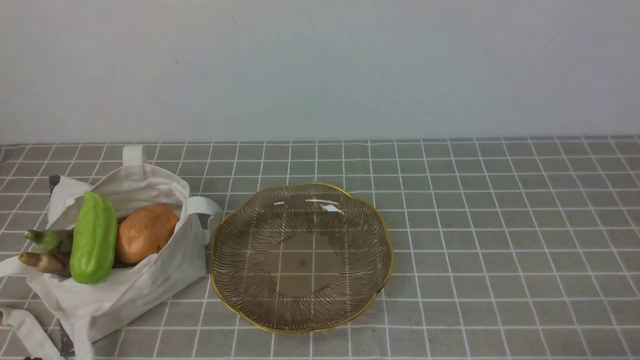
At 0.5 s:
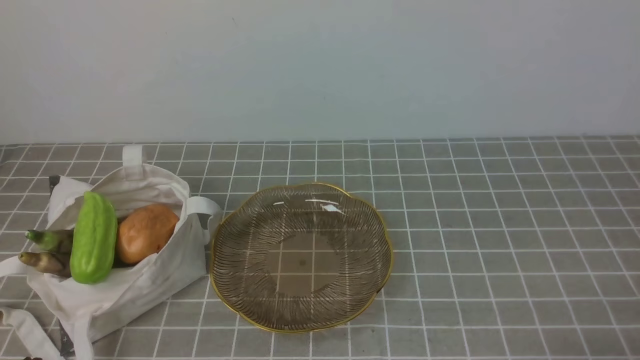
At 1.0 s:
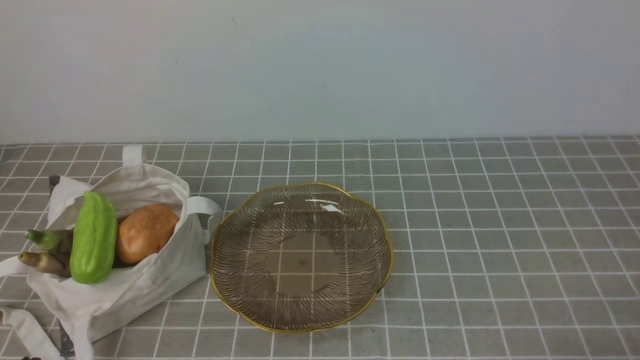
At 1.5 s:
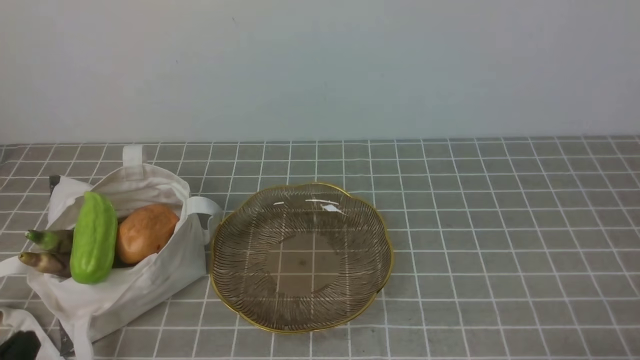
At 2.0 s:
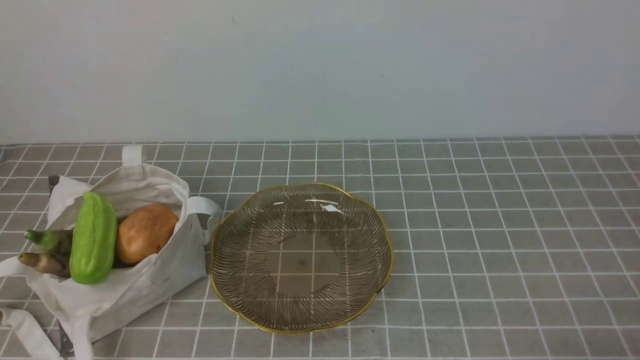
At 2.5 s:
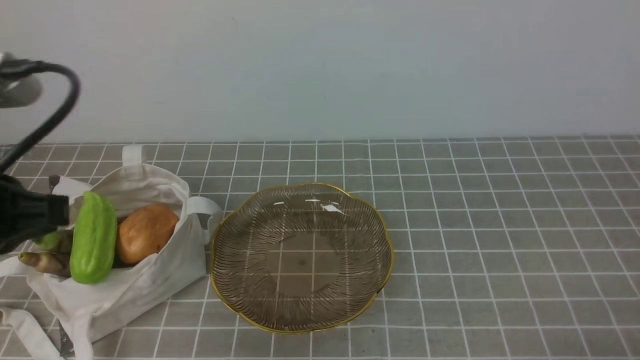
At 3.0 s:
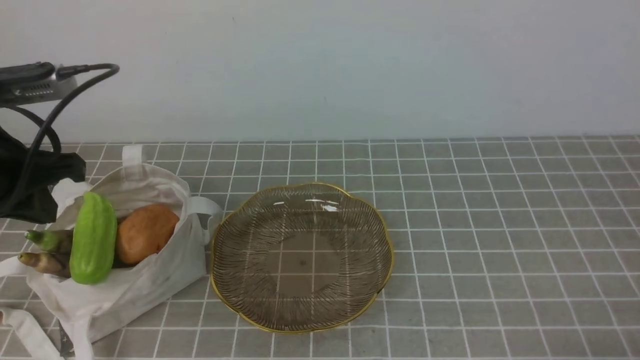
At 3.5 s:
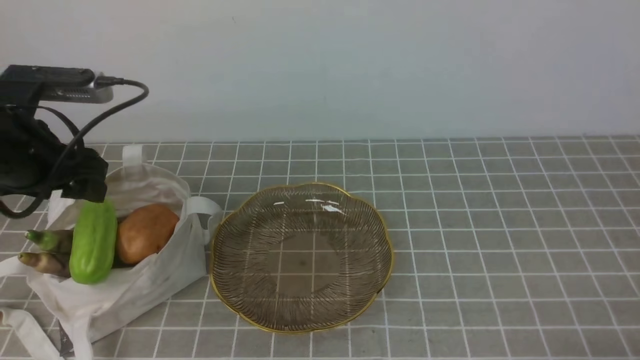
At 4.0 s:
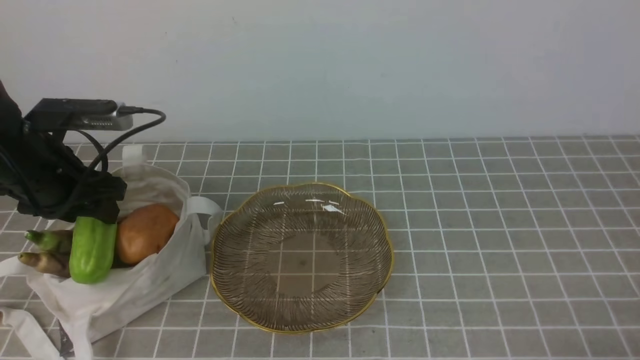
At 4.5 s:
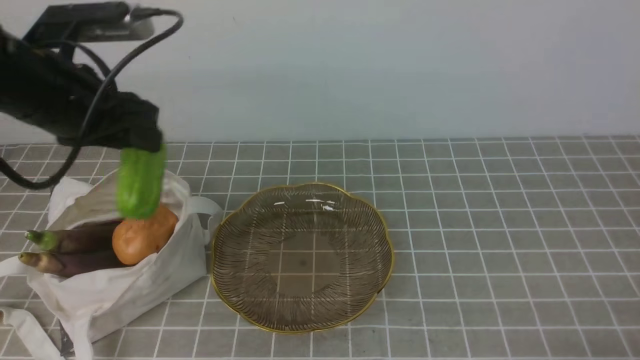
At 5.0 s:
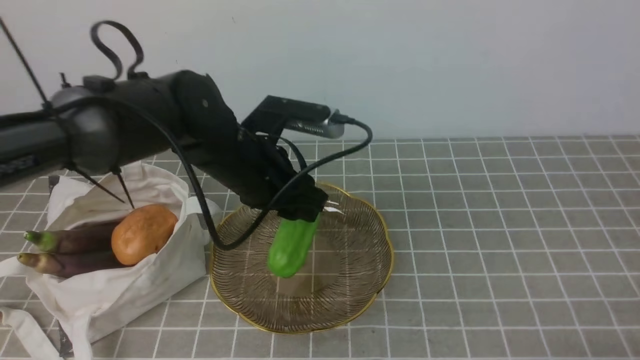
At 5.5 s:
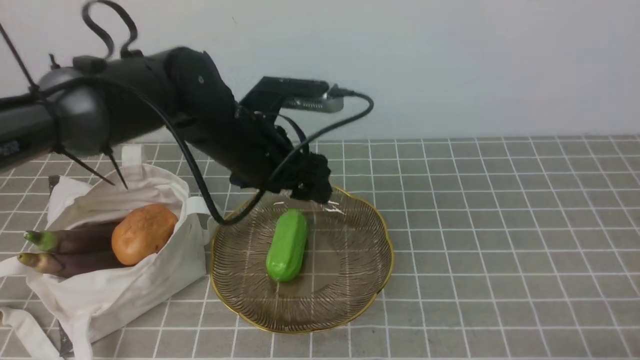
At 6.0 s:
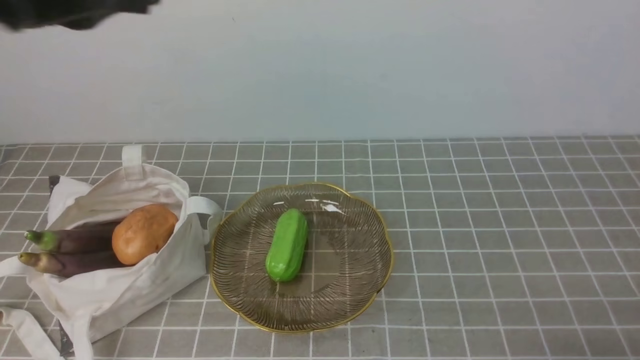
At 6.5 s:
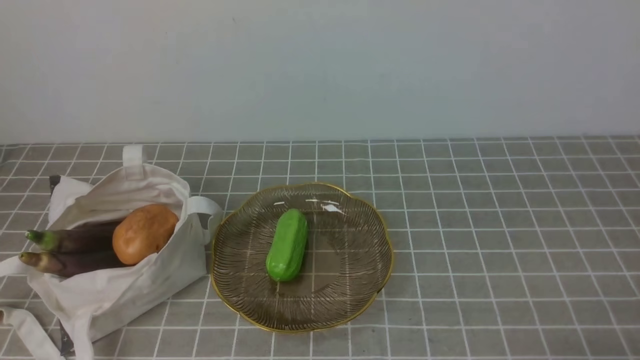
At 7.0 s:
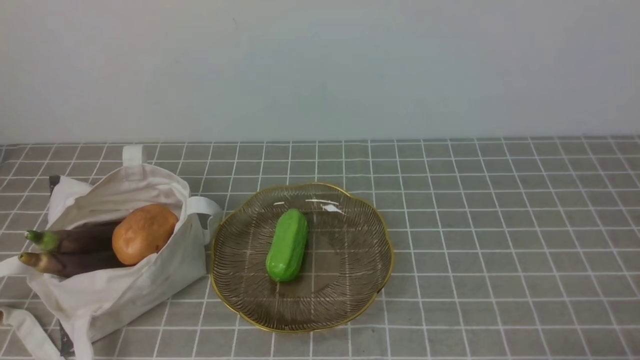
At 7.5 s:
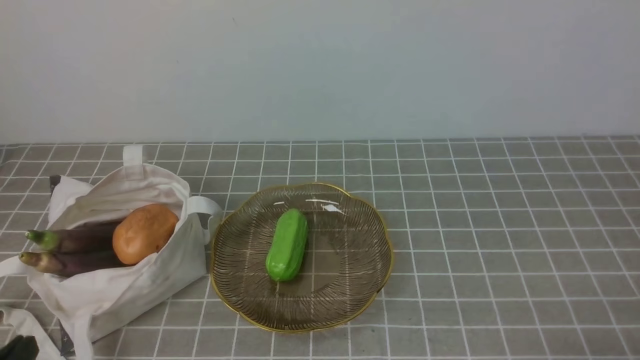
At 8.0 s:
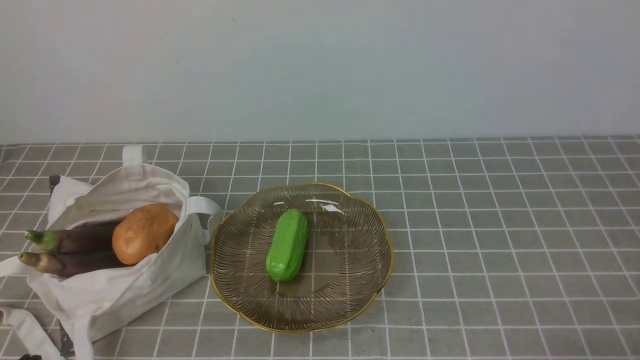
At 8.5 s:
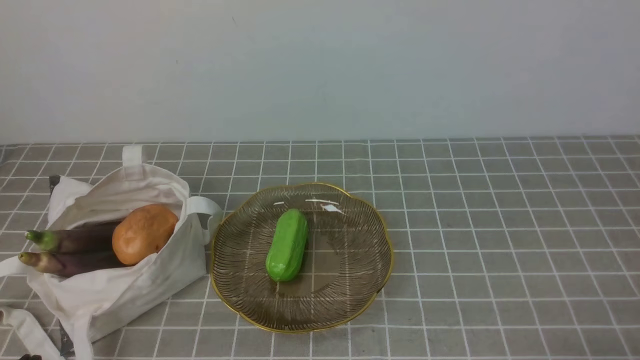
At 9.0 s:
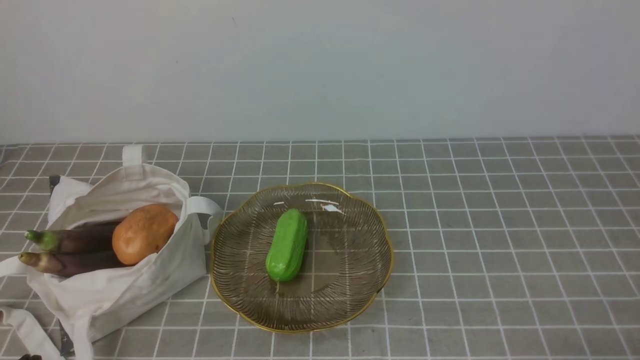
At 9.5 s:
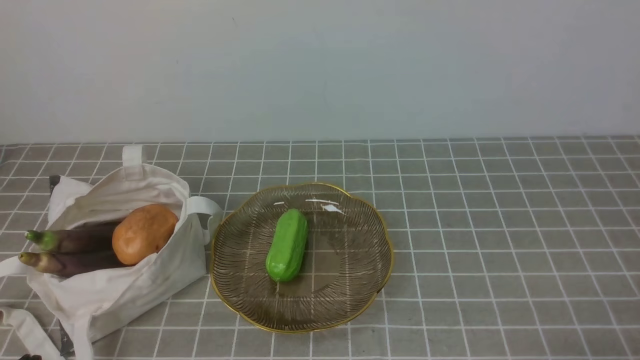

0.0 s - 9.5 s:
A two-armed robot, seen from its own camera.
Task of the whole recording: take vegetables from bag on grey coffee tablecloth place on plate.
Step, 0.0 s - 4.0 s: Grasp the bitter melon with left gripper.
Step, 4.5 s - 5.5 s: Place the bitter melon on the plate with left gripper.
2.0 s - 4.0 s: The left gripper goes about 30 cm forward, and opens its fingers.
4.0 s - 5.5 s: The left gripper moves to the right, approximately 20 cm.
5.5 s - 7.5 s: The left gripper travels backward and to the left by some 35 cm, and closes its fingers.

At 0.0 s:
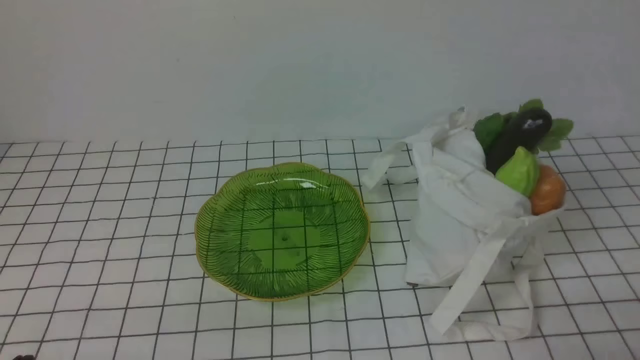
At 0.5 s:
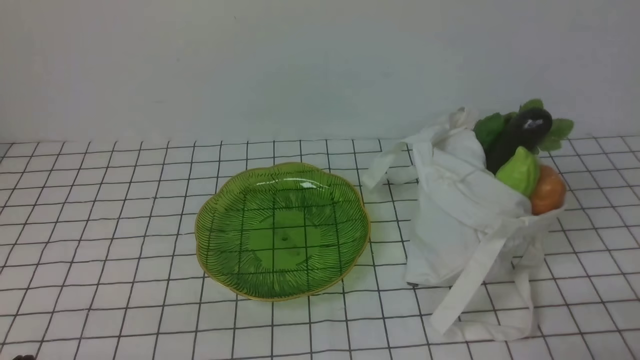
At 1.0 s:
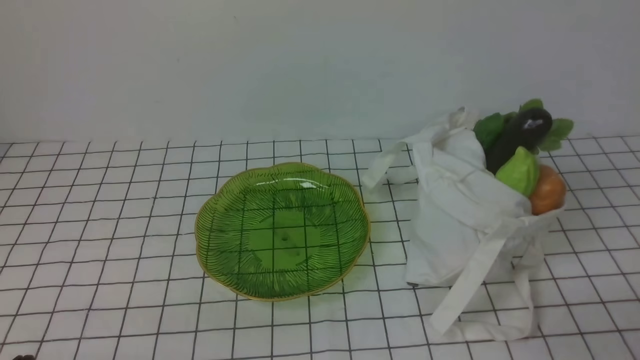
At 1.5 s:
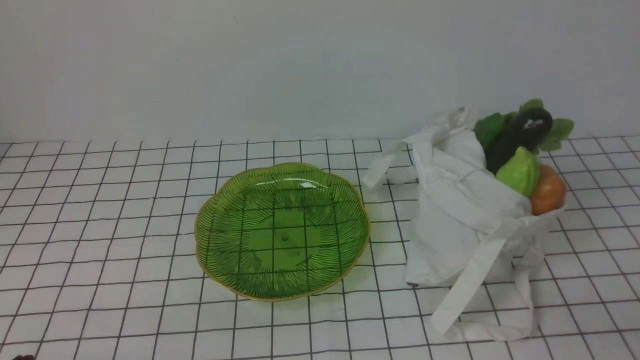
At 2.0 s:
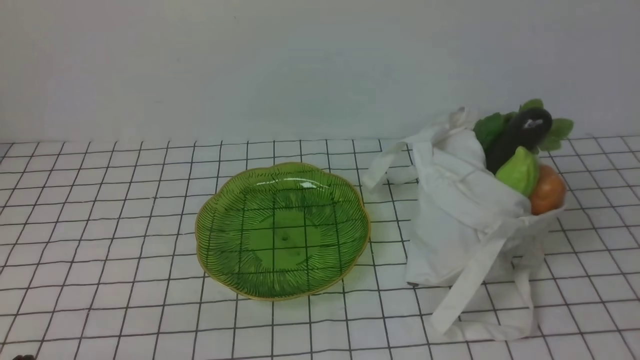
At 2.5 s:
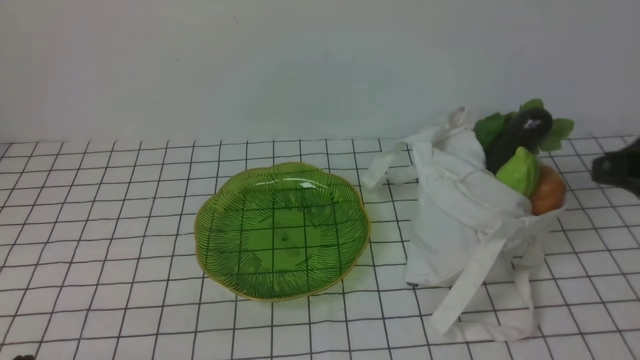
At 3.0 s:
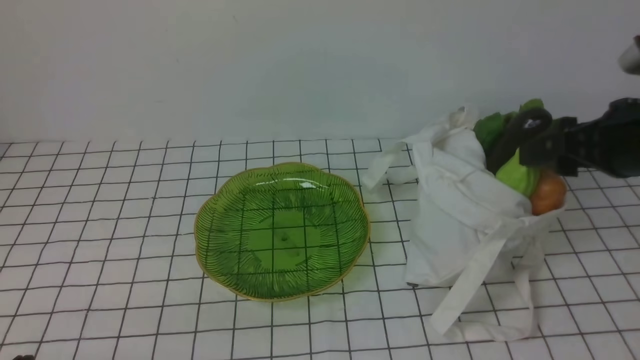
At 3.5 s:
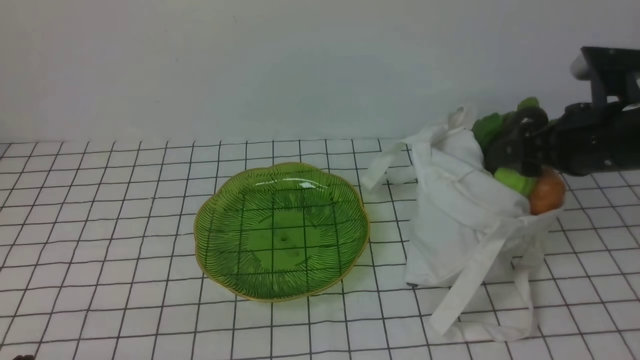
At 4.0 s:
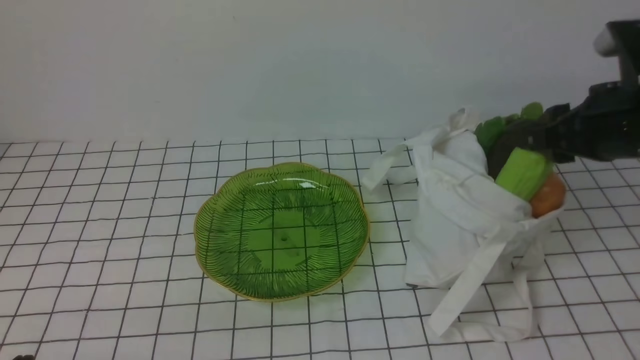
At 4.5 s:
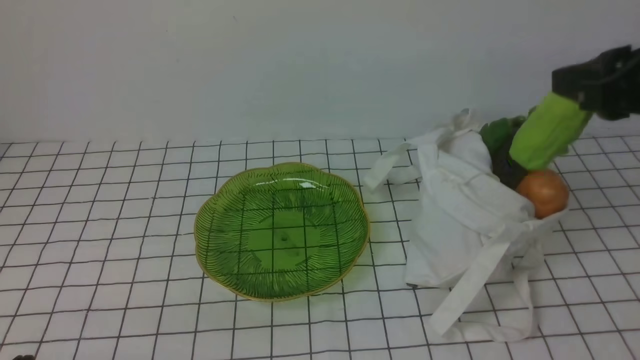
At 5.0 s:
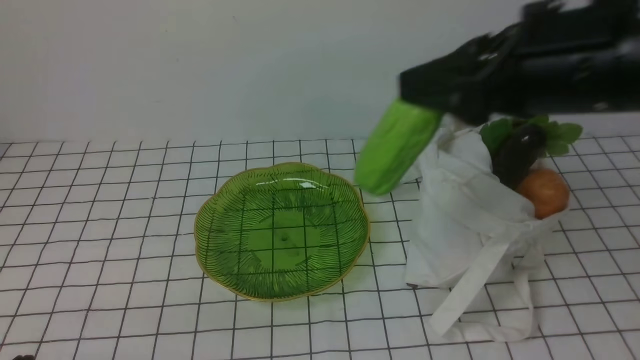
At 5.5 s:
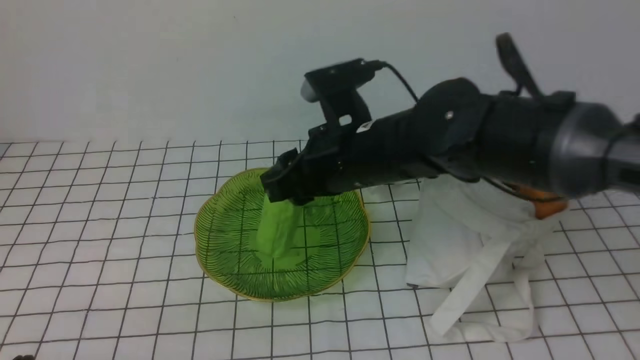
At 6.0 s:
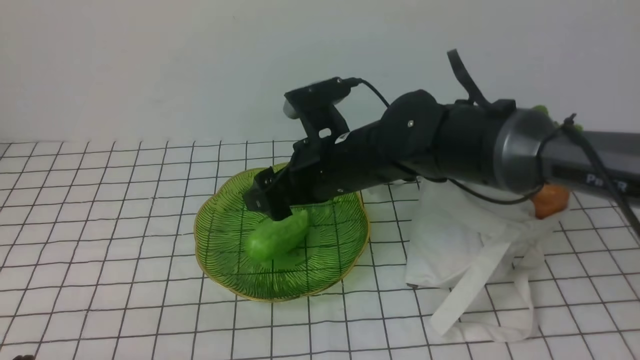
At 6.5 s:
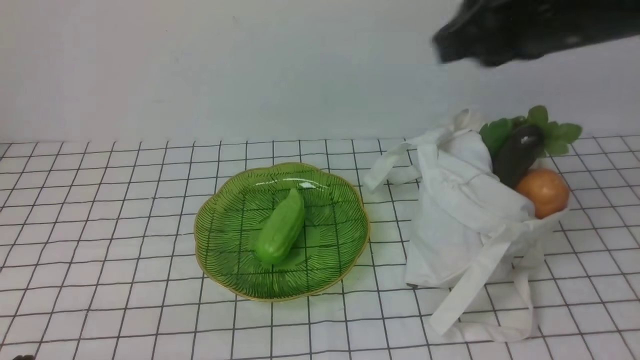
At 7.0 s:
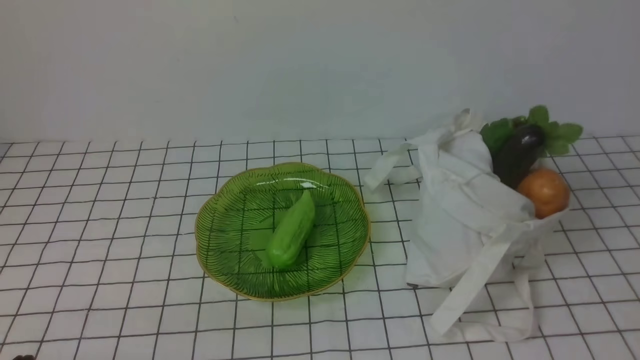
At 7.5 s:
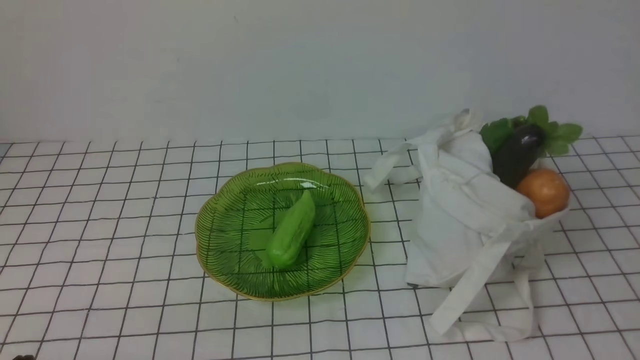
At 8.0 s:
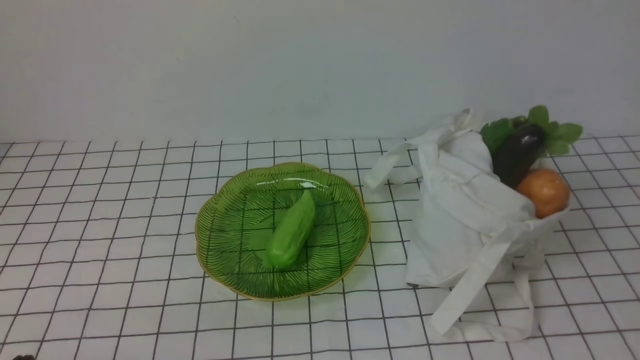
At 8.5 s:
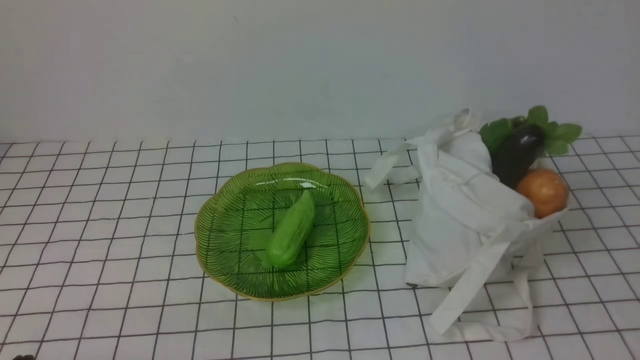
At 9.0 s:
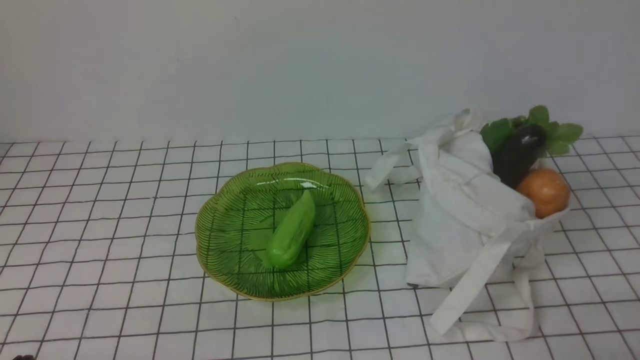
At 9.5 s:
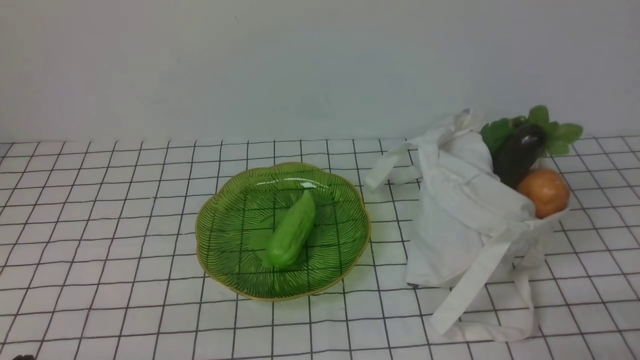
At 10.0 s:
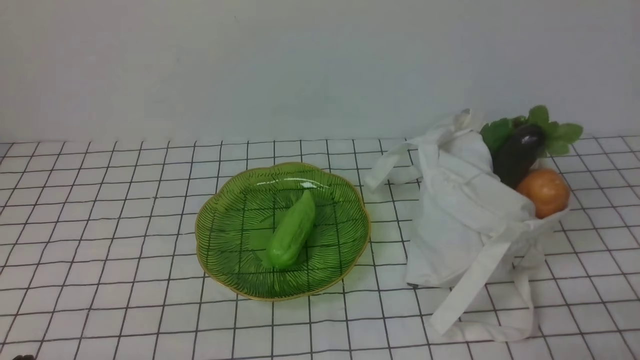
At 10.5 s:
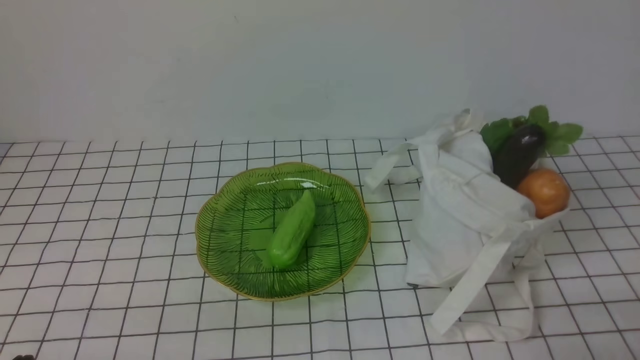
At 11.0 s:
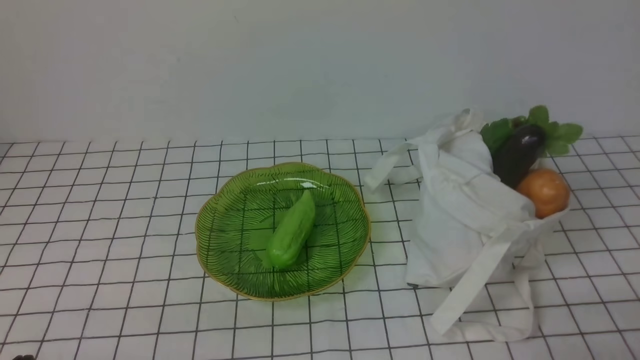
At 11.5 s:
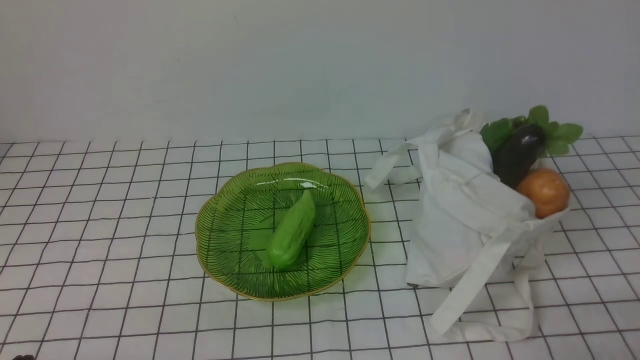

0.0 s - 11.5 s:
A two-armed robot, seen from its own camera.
Task of the whole recording: take vegetables from bag on white checkered tablecloth place on plate.
Step, 0.0 s - 3.5 s: Grasp the bitter melon with right gripper.
Step, 4.0 s - 6.0 s: Place the bitter melon on the plate with right gripper.
2.0 s - 4.0 s: The right gripper moves forward, about 20 cm, and opens its fingers.
4.0 s - 6.0 s: The right gripper heads to the left, covering approximately 25 cm, and opens its fingers.
6.0 s - 7.5 s: The right gripper heads backward and to the right, covering roughly 50 cm, and closes.
9.5 s - 11.5 s: Both grippers stay about where they are.
